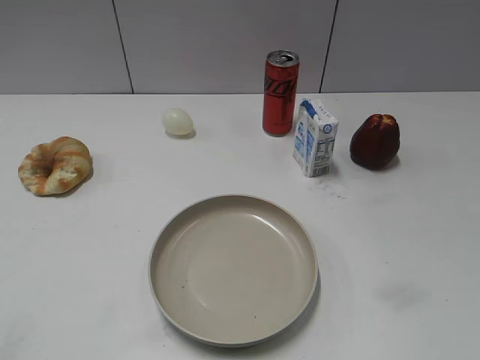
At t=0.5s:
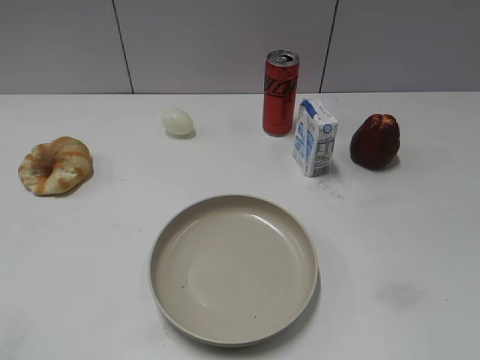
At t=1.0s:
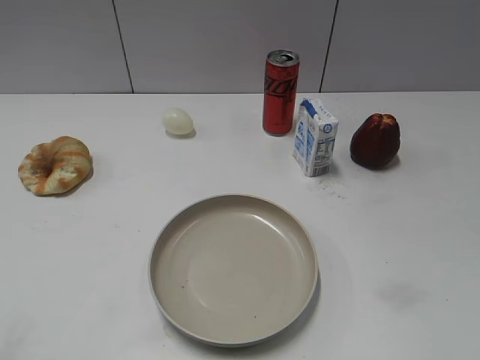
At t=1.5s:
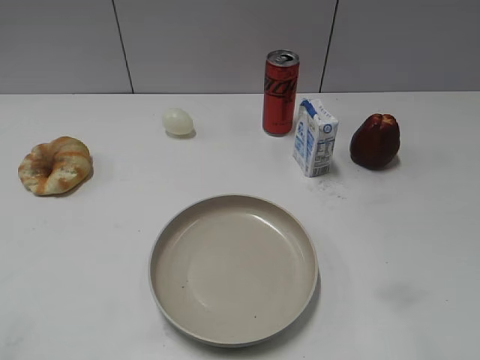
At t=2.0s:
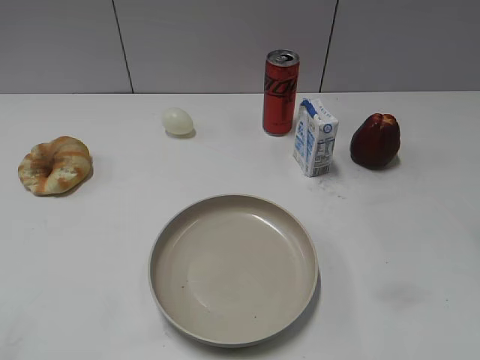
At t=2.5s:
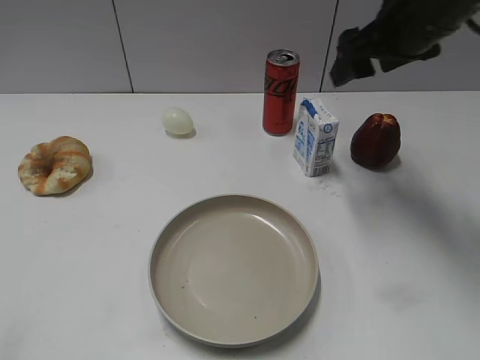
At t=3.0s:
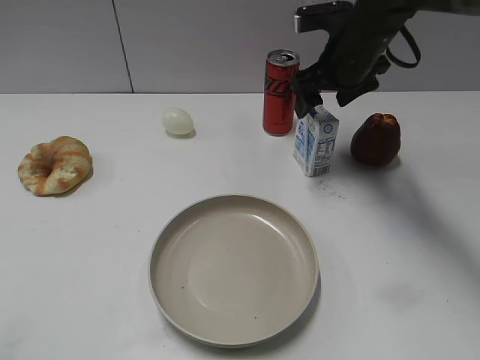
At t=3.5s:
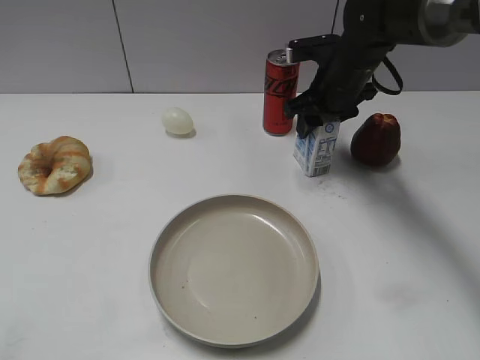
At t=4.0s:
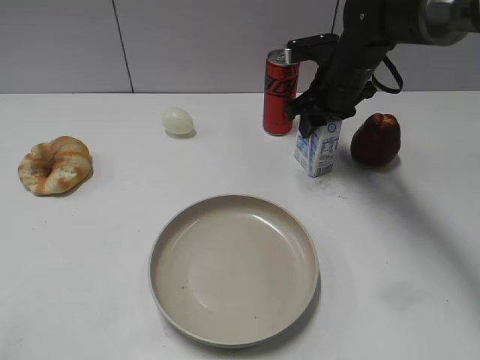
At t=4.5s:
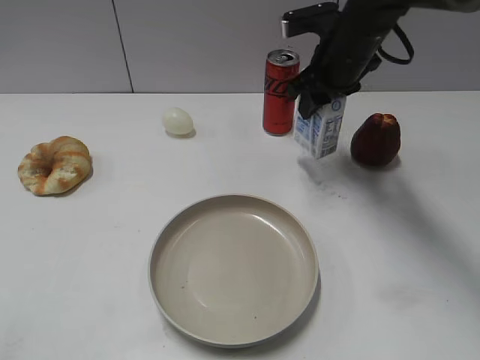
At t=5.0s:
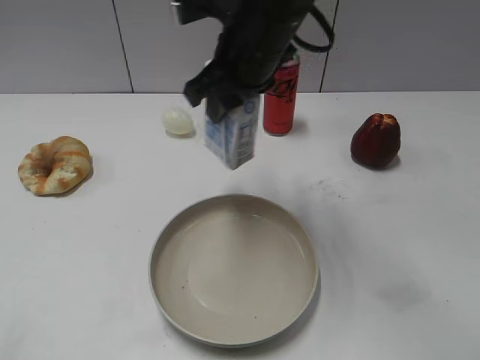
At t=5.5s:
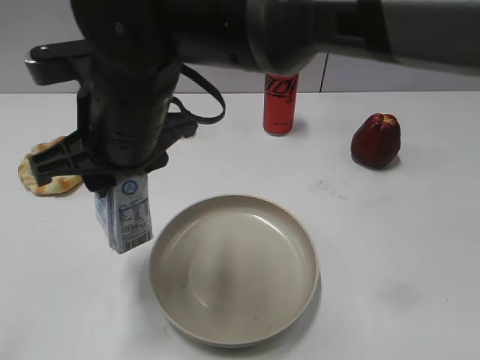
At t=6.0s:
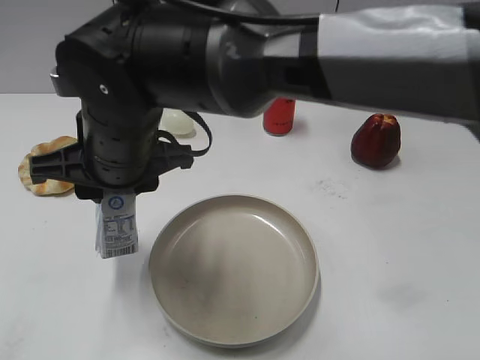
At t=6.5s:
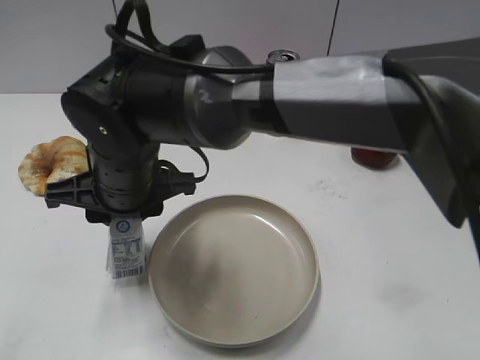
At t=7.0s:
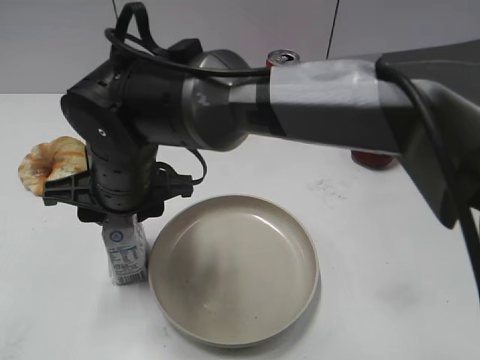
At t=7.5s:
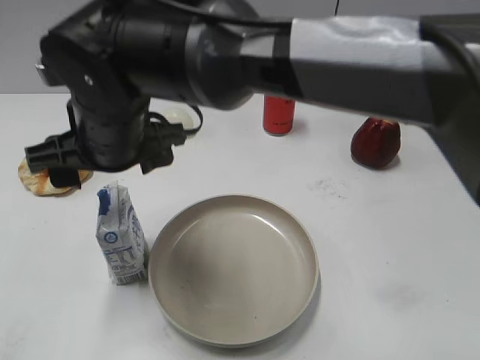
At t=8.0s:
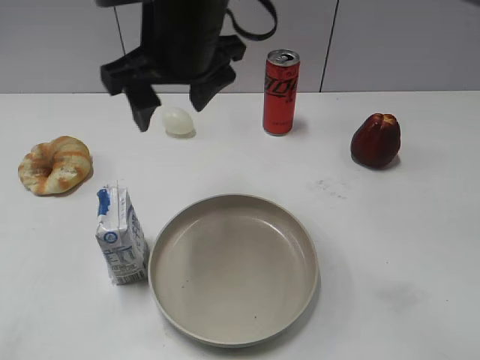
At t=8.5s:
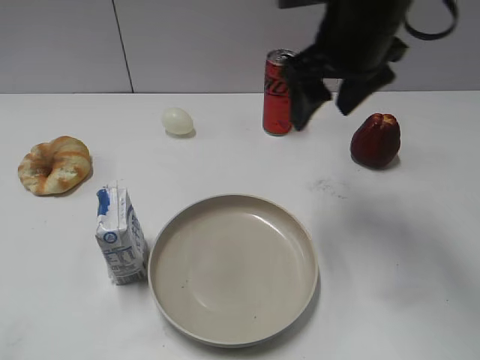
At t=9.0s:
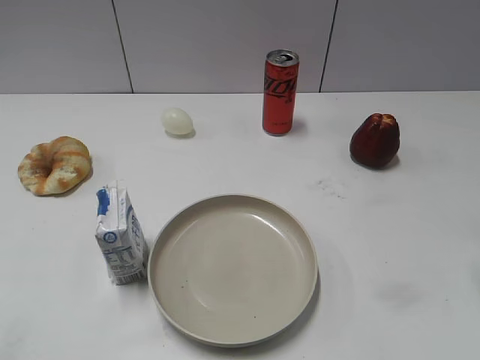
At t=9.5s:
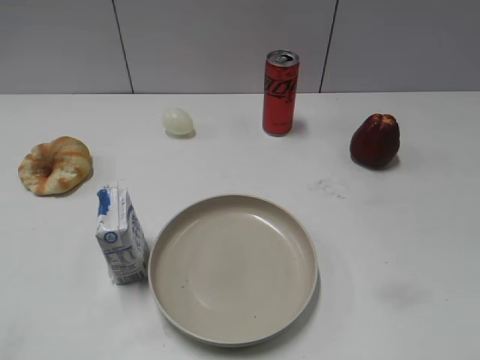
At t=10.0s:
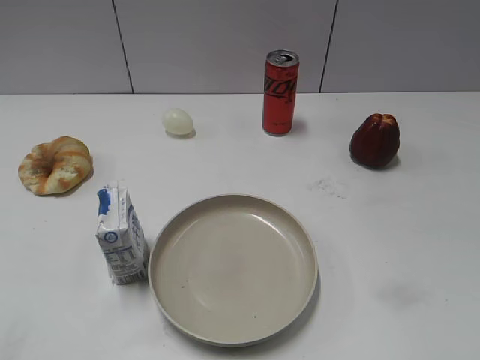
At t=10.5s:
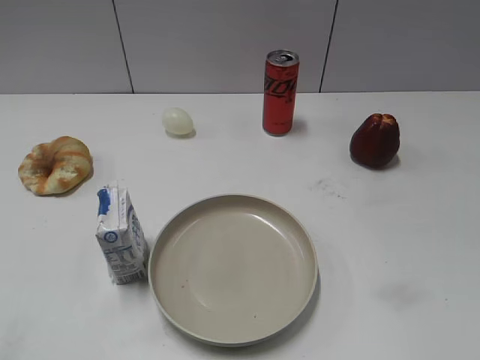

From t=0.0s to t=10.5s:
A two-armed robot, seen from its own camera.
Step, from t=1.0s to t=3.5s: Grasp the milk with right gripper.
Step, from t=4.0s to t=7.0s: Place the milk on the table with right gripper.
From t=2.0s to t=4.0s: The right gripper heads forward, downward and to the left, covering approximately 30 cm, and closes up.
From t=4.0s to t=6.5s: The right gripper moves to the left and backward, some 30 cm.
From t=6.5s to t=8.5s: The right gripper goes about 30 cm to the right and upward, and opens.
From t=8.5s to t=10.5s: The right gripper heads backward and to the right, covering some 35 cm.
